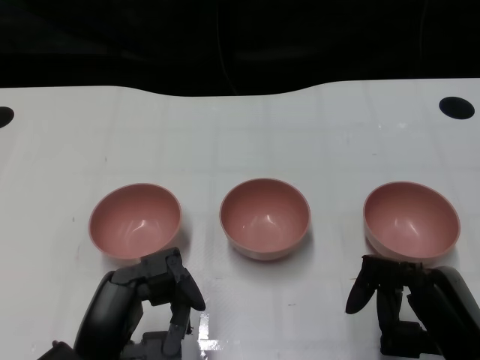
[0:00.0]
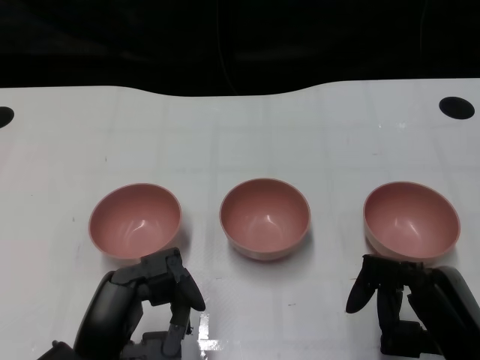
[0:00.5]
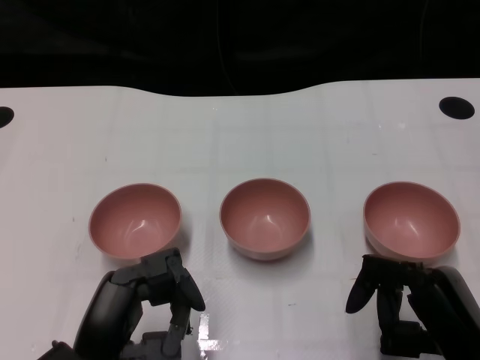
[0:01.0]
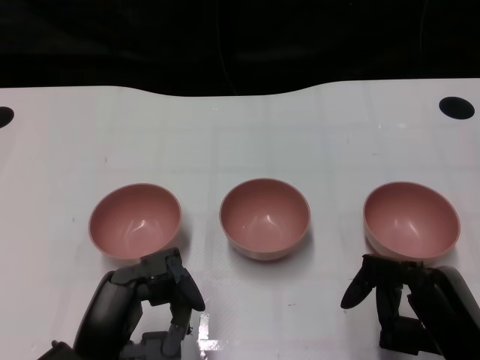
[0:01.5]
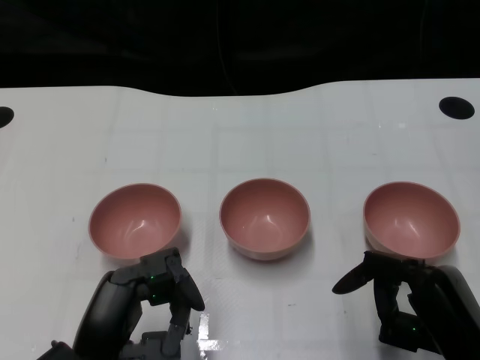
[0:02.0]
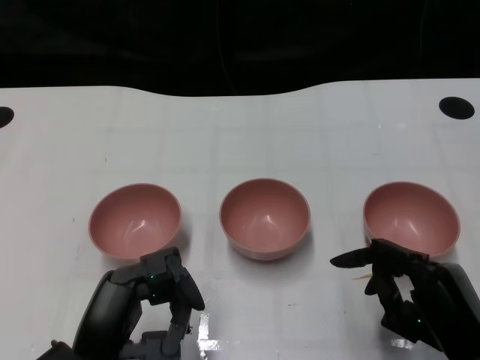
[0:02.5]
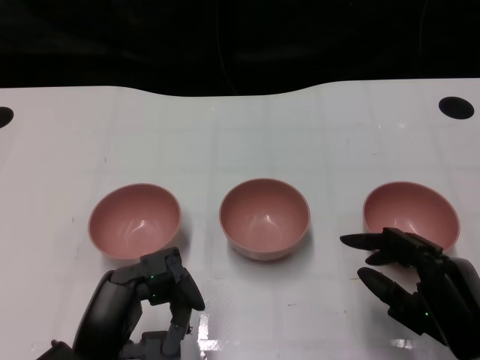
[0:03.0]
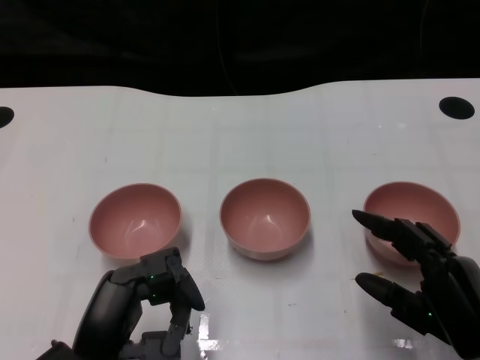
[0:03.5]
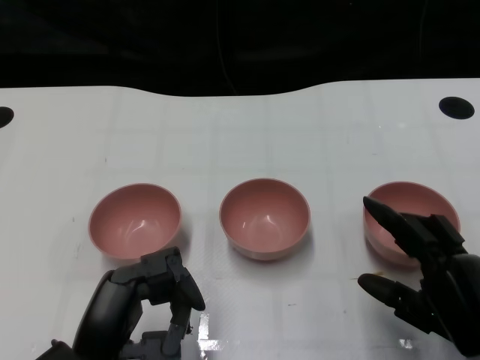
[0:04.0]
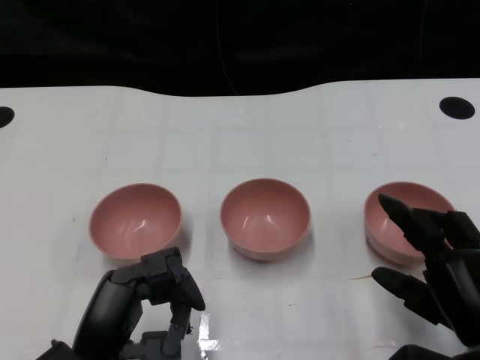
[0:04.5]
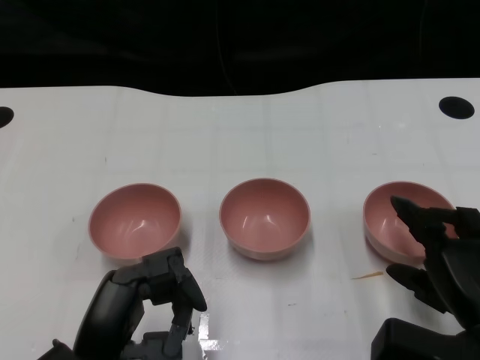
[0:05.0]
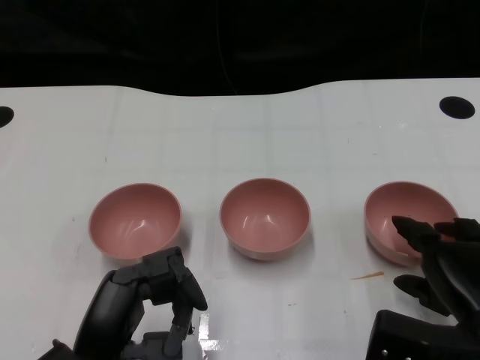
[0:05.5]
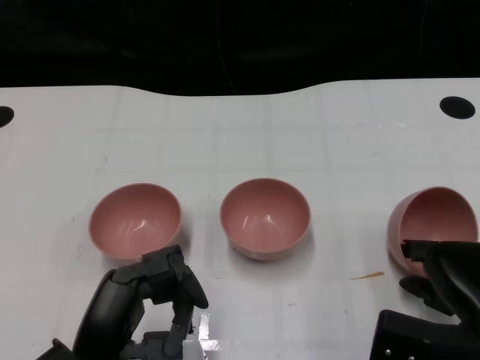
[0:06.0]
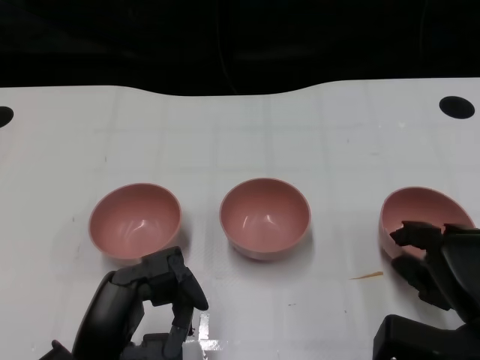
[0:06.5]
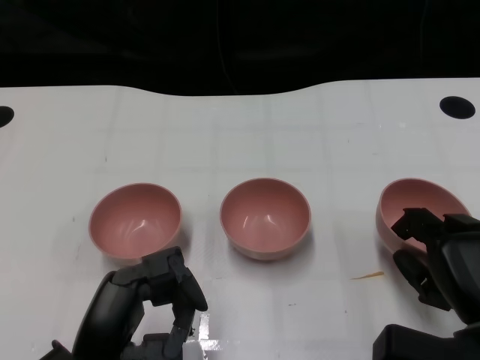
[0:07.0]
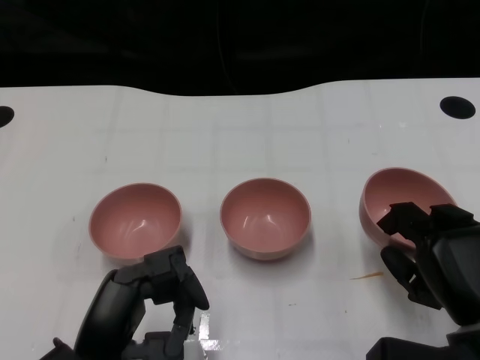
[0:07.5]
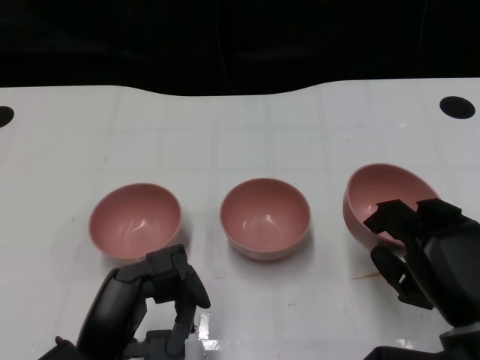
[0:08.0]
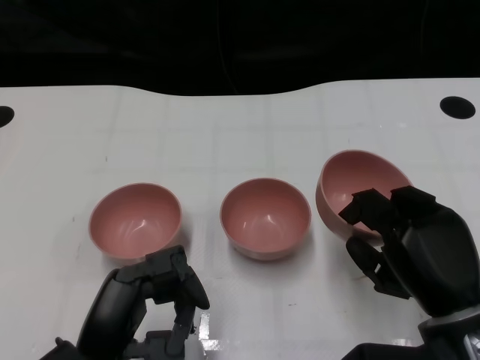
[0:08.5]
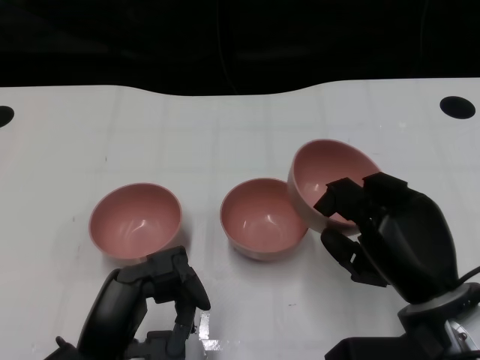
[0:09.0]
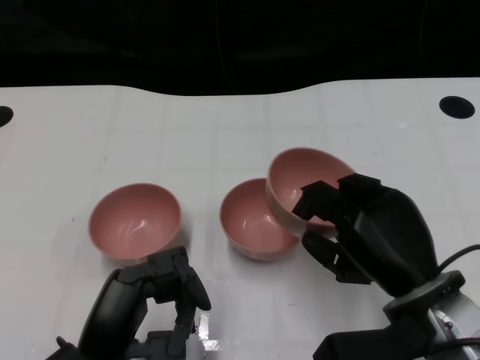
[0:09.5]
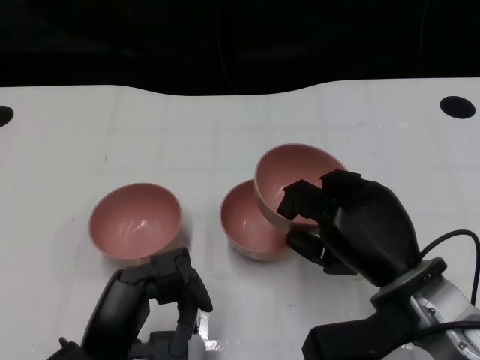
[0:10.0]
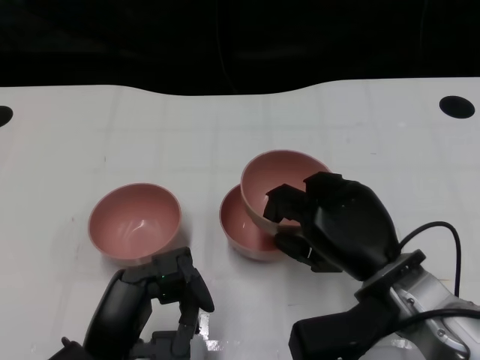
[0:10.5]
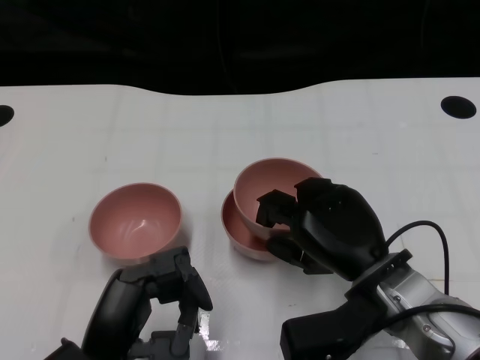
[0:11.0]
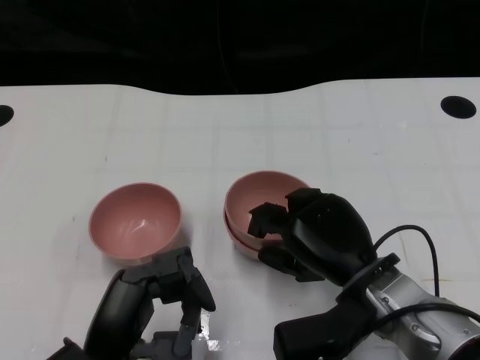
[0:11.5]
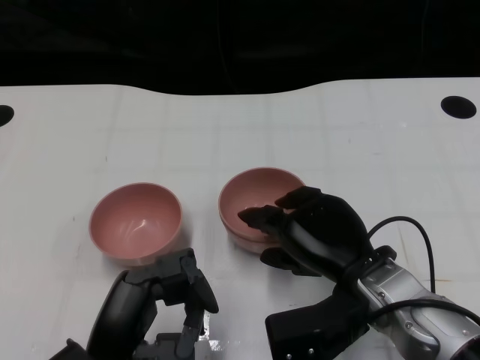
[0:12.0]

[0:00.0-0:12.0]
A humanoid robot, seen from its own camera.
Task of the whole recording: Pick up the bowl on one side of the table and place it on top of the middle bowl, then pick up the bowl on the other side of the table and place it on top of the middle bowls.
Step, 0:01.5 to 0:06.5: Grasp the bowl on the right with the right gripper.
0:02.0 to 0:04.0: The hands move only a little.
0:08.0 to 0:10.0: The right hand travels to the left by roughly 5 cm.

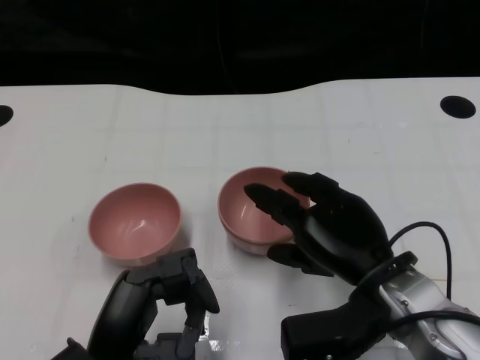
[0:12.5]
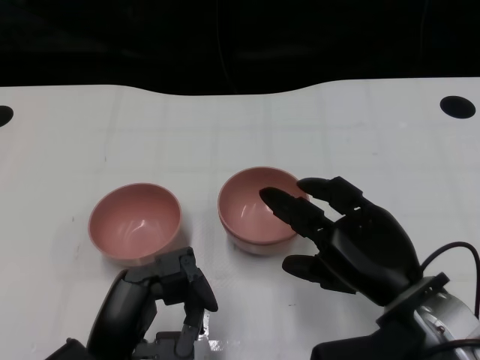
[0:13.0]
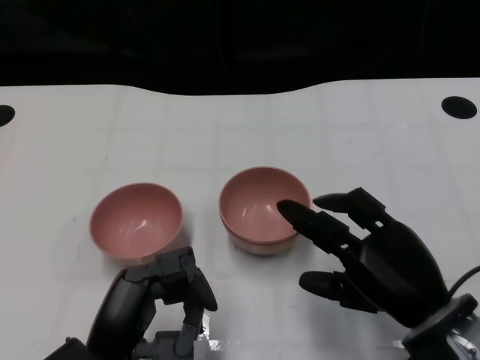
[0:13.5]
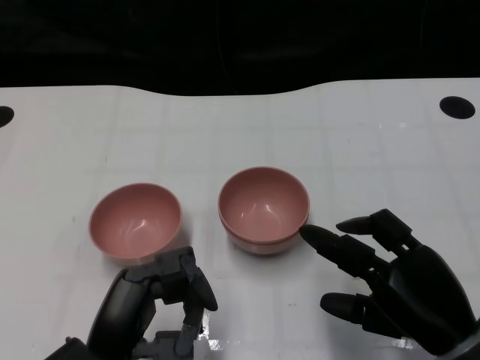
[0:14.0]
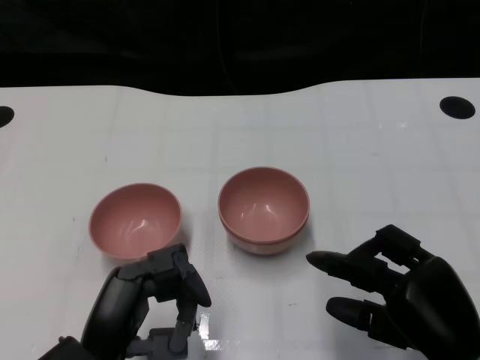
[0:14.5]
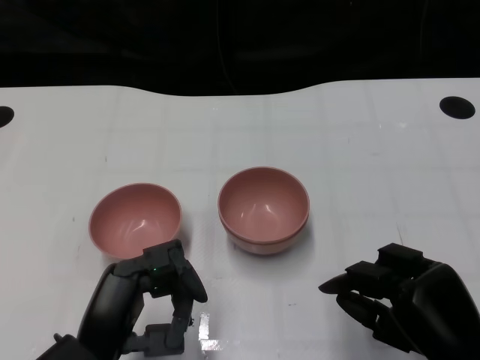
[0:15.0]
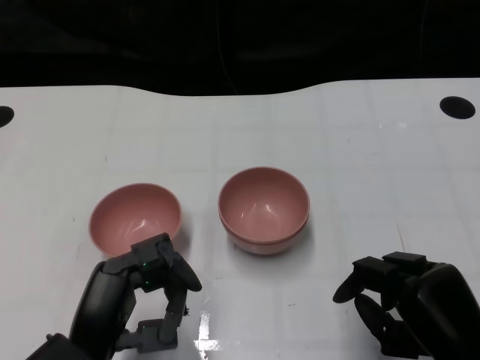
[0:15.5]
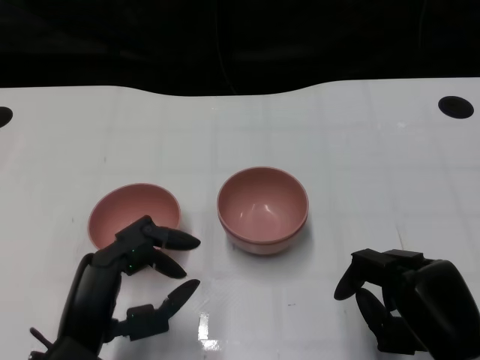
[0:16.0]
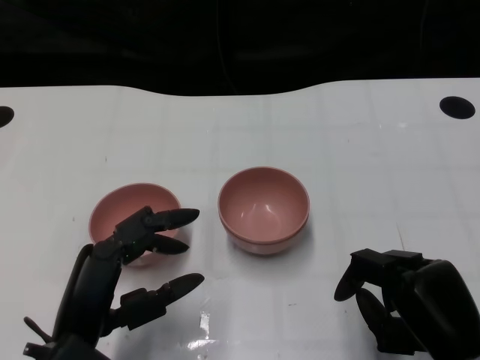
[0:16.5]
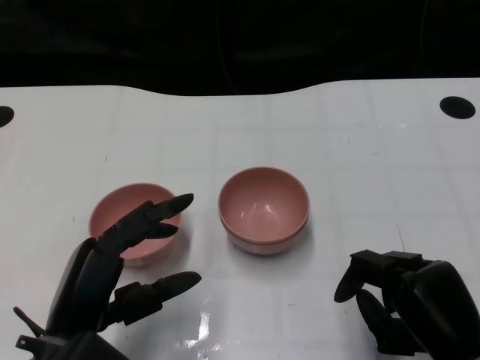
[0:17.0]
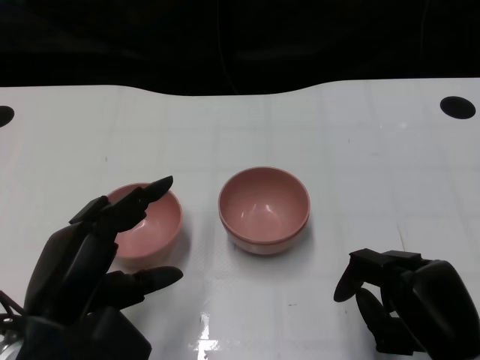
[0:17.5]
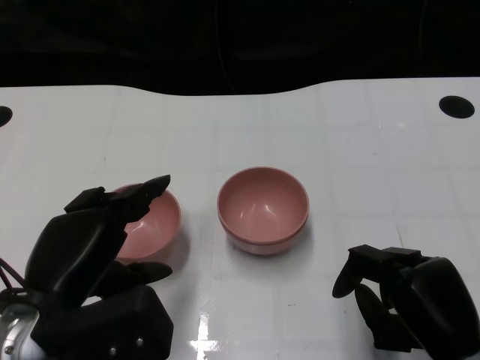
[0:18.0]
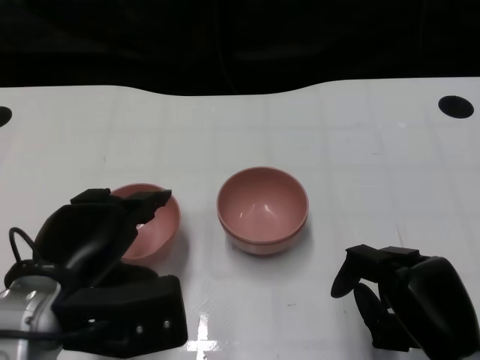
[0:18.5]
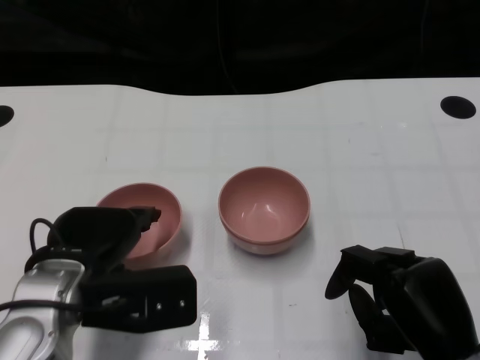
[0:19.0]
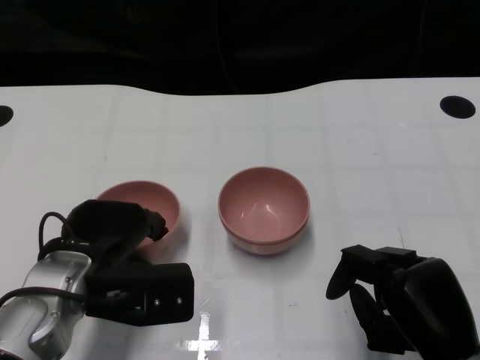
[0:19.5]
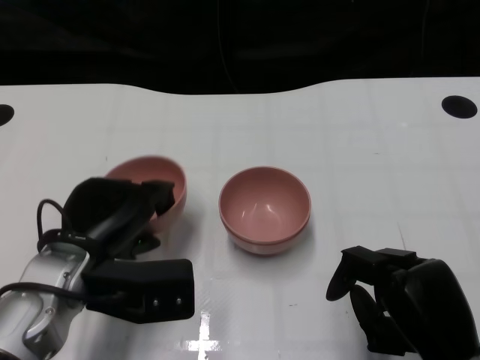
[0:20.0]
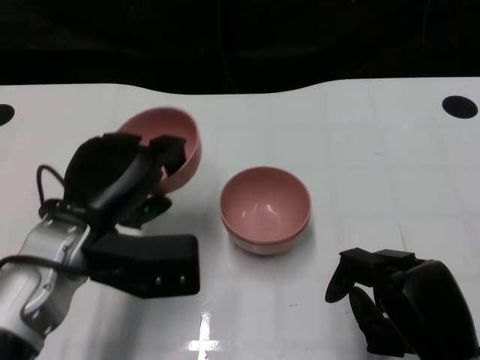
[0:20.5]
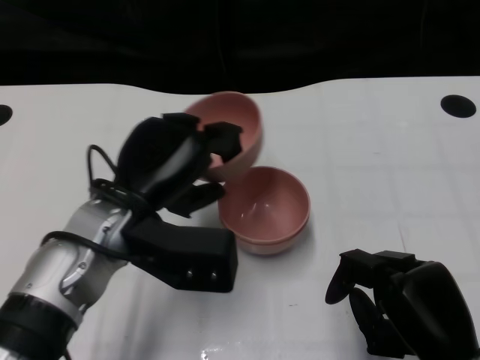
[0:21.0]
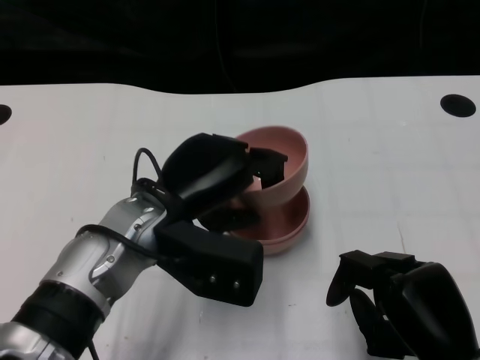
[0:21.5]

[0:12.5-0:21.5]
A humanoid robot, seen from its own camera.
Task of the whole recording: Pick up the bowl on one side of the table and place it on top of the middle bowl, then pick up the bowl on the other side of the table and place it on top of the middle bowls.
Step, 0:13.0 to 0:19.5: Grasp the bowl on the left with the left gripper.
0:12.5 to 0:14.5: The right hand moves backward and to the right, approximately 10 cm.
0:17.0 to 0:19.5: The left hand goes roughly 10 cm forward.
0:19.5 to 0:21.5: The left hand is displaced to the right and upward by about 10 cm.

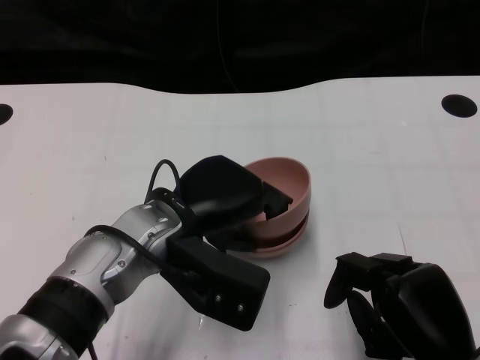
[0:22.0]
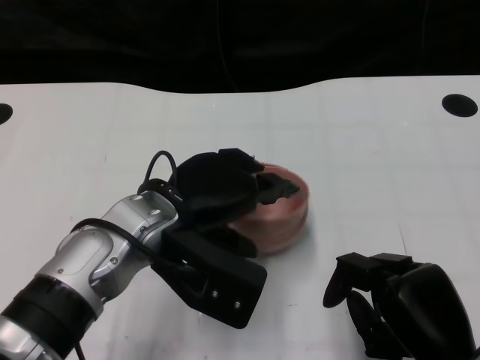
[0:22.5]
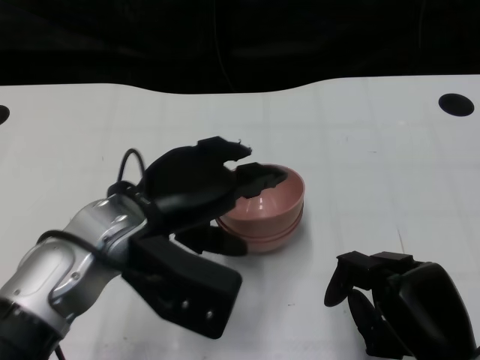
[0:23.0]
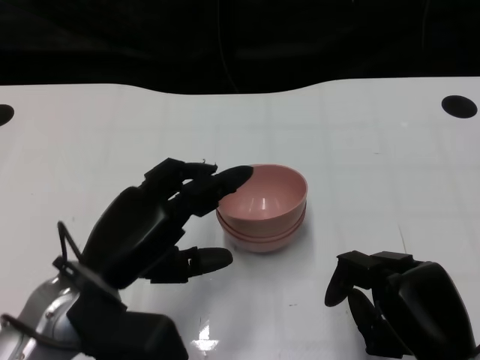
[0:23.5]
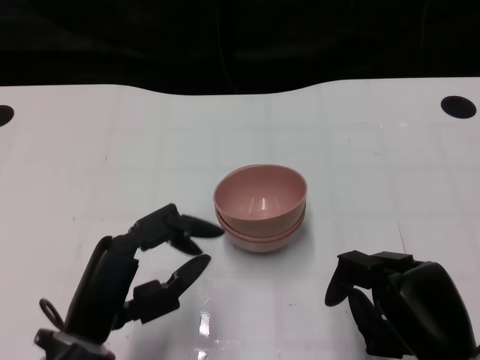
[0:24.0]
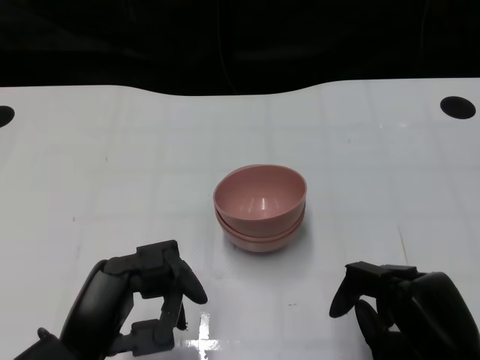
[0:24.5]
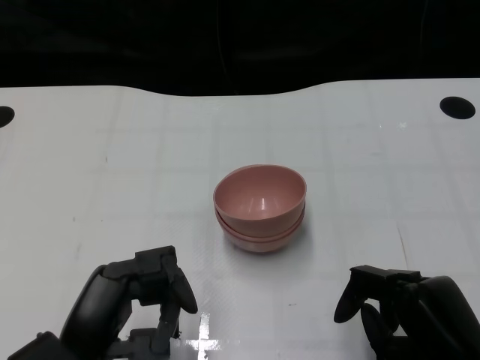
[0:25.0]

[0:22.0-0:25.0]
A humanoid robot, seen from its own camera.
Task of the whole recording: Pick up the bowl on one side of the table and place it on top of the middle bowl, then pick up the bowl on the other side of the table and place it on top of the middle bowls.
0:22.0 to 0:23.5: The left hand goes approximately 10 cm to the left and backward.
0:23.5 to 0:25.0: The left hand moves backward, some 5 cm.

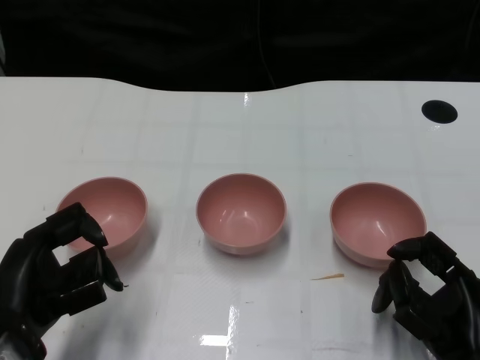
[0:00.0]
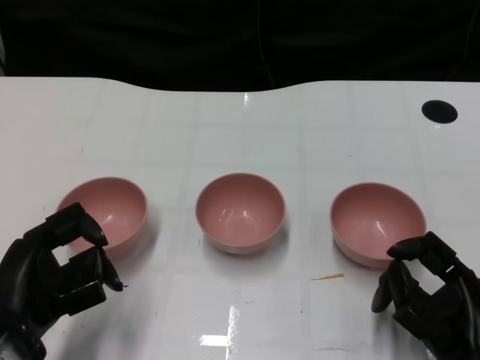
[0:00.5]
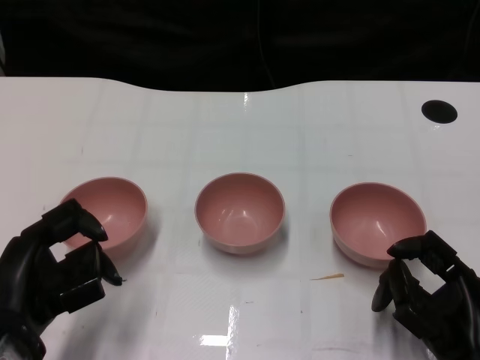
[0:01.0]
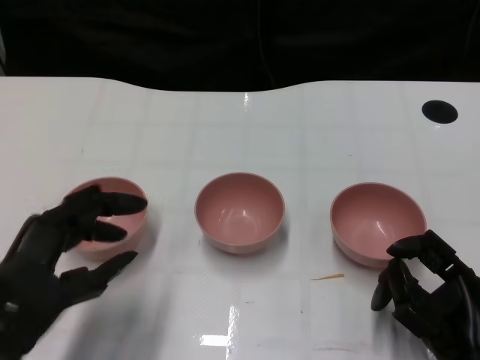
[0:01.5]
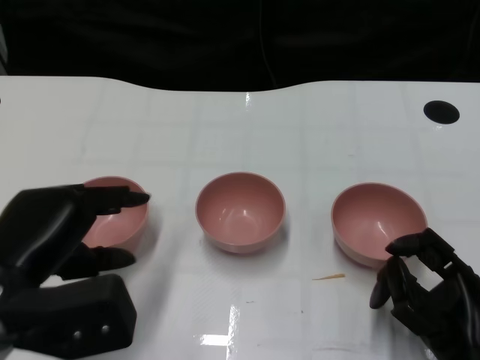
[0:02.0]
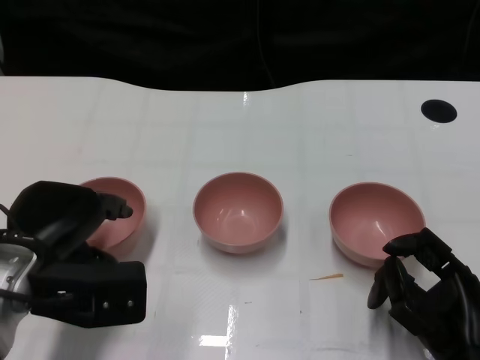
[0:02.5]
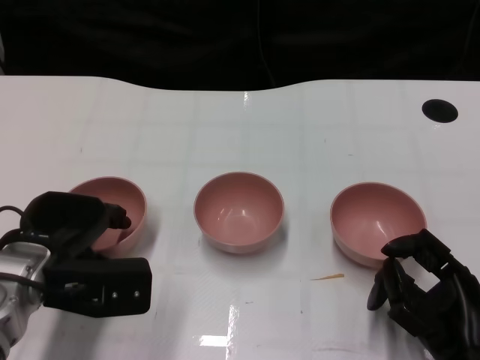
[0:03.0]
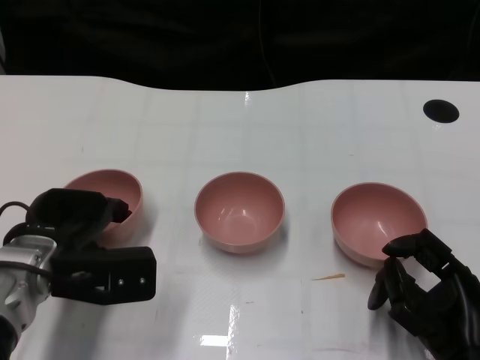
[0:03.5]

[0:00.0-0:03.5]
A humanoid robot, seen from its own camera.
Task of the whole recording: Pick up the bowl on one side of the table and place it on top of the middle bowl, then pick up the bowl on the other side of the table and place it on top of the middle bowls.
0:02.0 to 0:03.5: The left hand shifts some 10 cm forward and downward.
